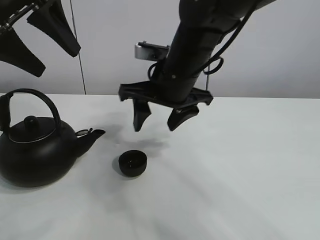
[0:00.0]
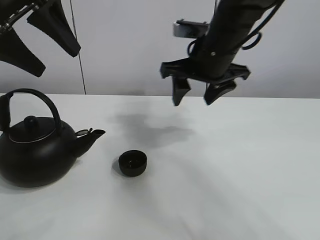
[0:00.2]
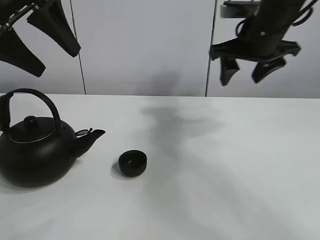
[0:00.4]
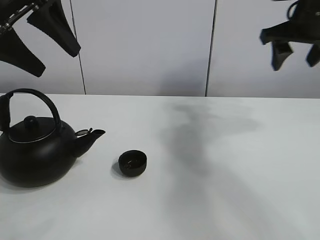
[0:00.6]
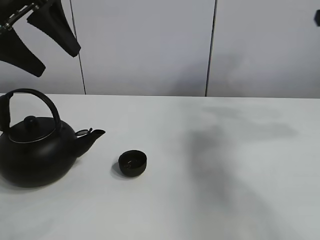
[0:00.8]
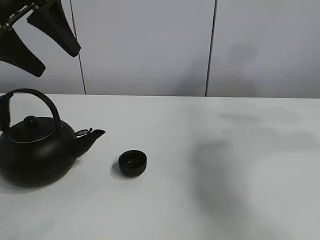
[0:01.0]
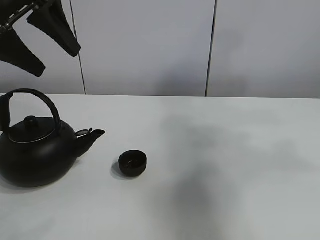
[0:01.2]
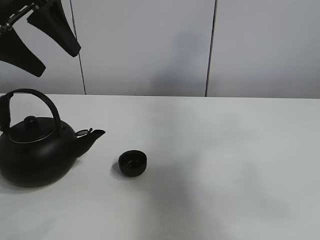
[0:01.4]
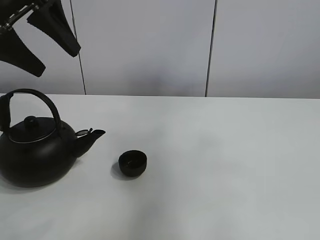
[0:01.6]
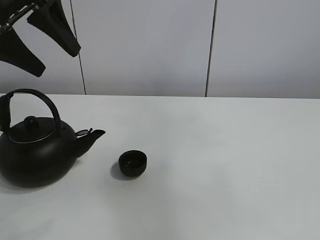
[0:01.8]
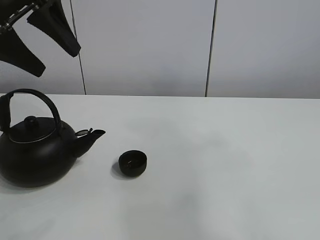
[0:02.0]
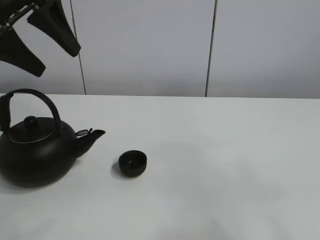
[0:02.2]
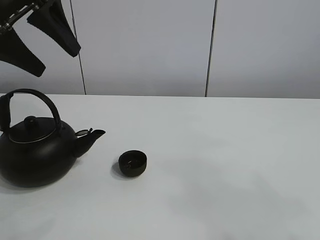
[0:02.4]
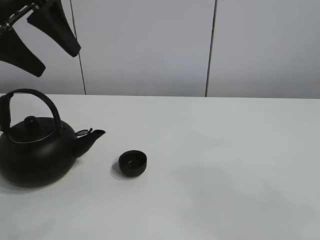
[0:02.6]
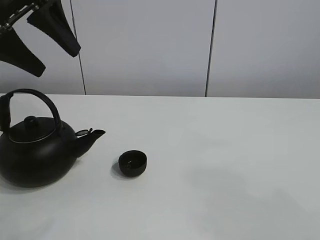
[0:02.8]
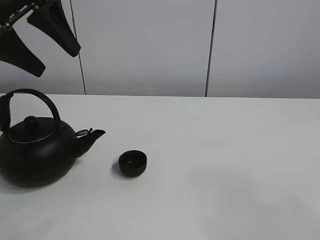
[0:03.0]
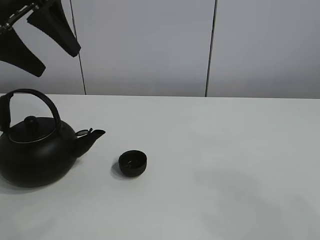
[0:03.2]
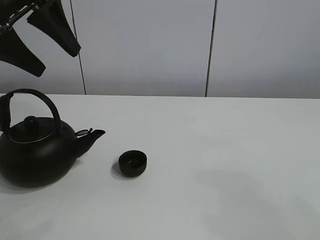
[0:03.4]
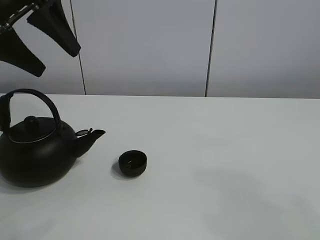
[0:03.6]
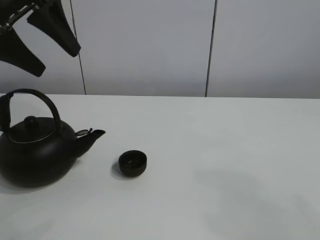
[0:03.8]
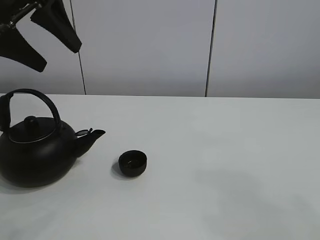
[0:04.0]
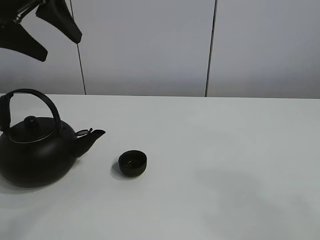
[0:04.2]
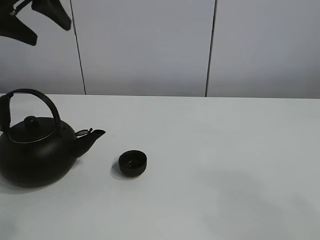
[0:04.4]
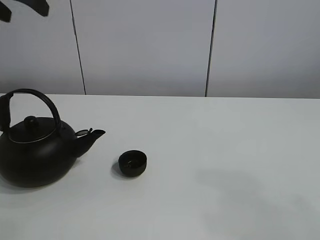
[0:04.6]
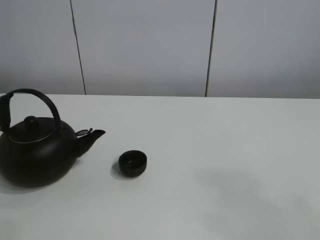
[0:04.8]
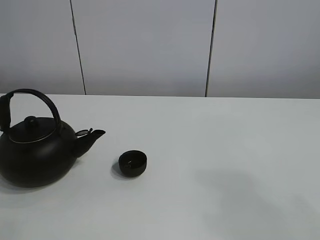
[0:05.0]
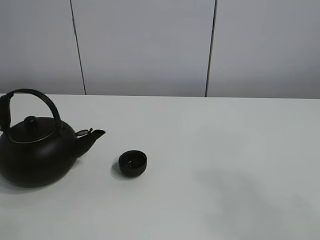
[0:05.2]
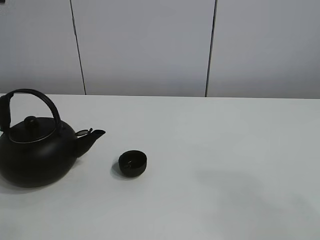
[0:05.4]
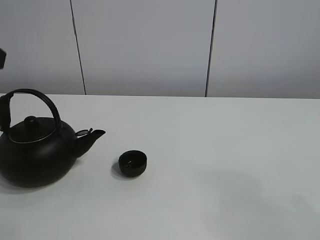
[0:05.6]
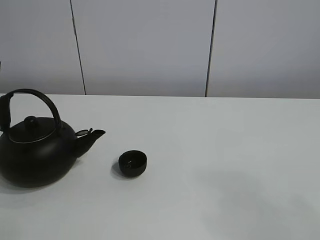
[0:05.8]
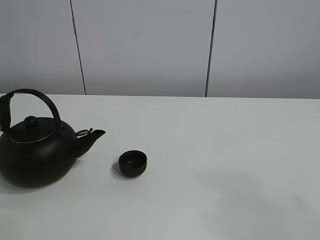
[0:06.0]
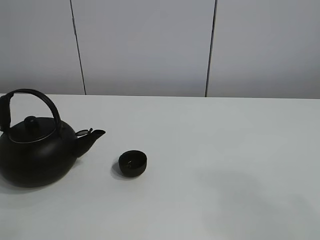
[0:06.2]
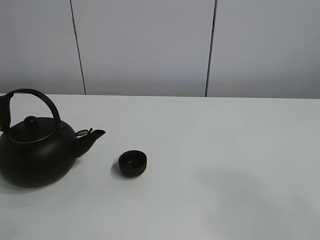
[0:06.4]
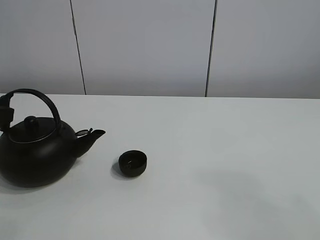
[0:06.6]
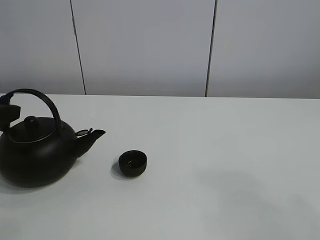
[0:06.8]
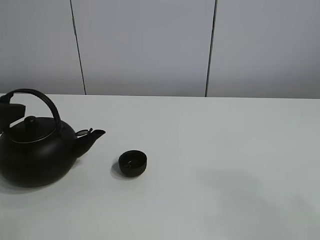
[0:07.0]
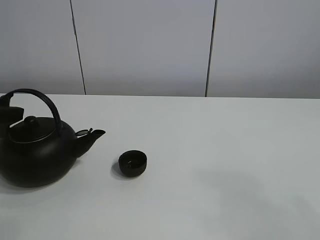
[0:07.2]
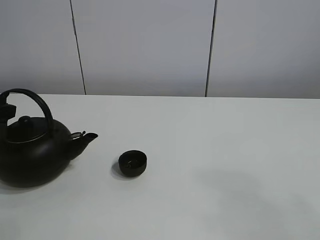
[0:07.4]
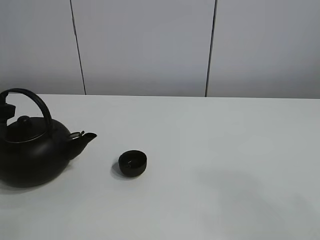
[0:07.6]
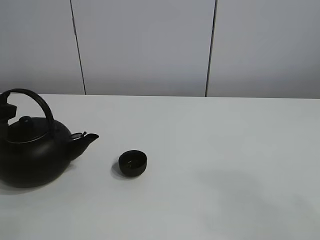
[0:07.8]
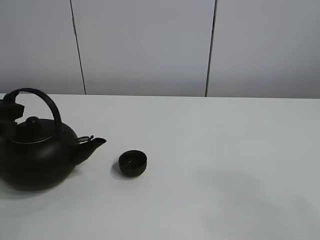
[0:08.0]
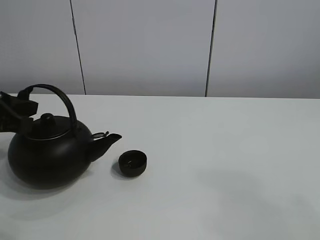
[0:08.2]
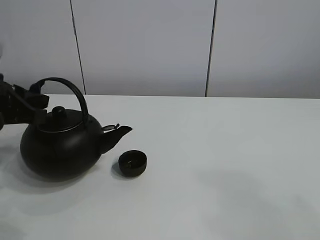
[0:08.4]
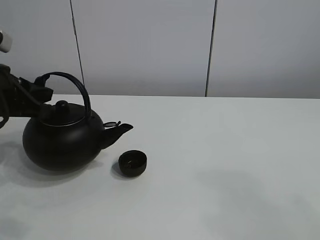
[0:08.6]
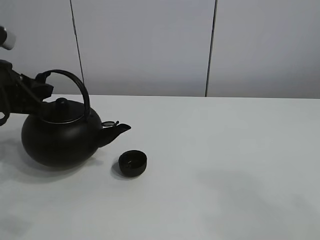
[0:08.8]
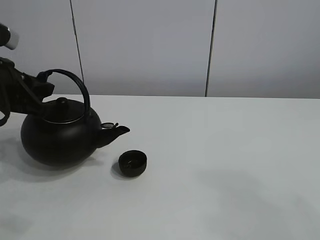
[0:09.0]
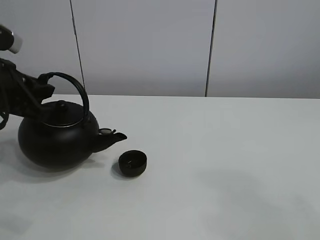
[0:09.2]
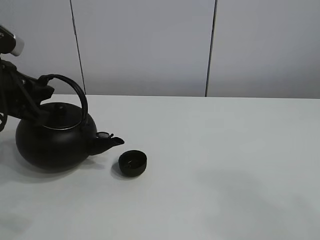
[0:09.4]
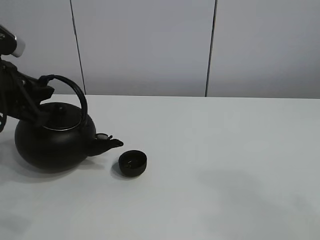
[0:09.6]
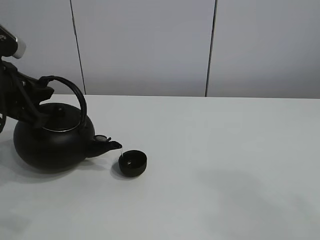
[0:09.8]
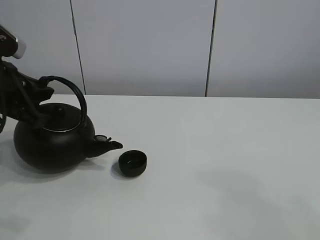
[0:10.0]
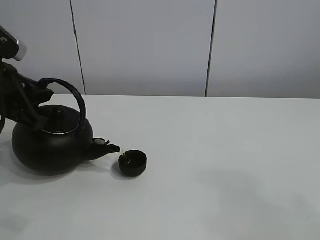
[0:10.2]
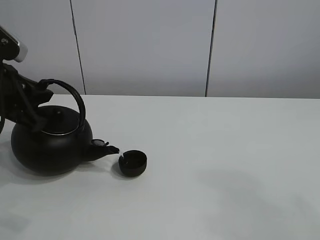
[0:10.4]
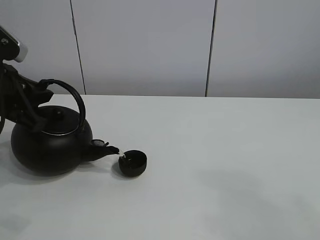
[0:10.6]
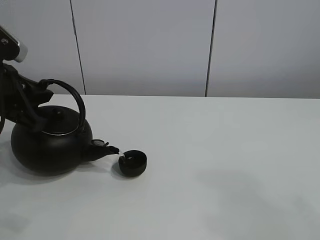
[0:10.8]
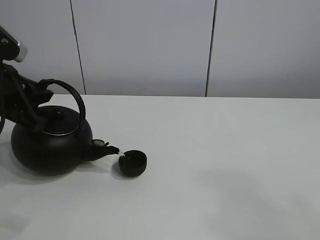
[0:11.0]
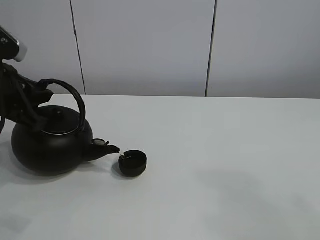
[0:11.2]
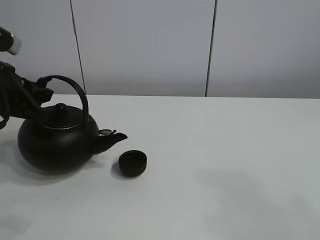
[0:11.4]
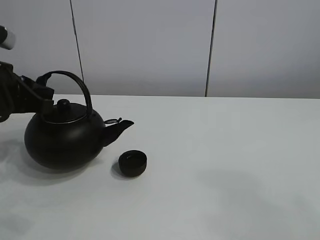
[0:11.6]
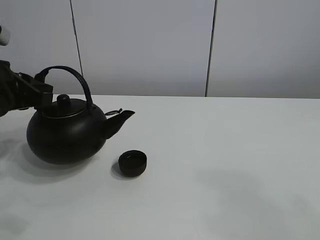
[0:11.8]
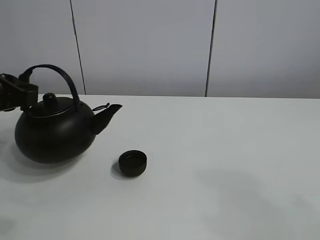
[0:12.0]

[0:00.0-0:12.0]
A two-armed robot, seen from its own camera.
Task of the whole recording: pour tea into the teacup.
Step, 0:00.0 to 0:08.0: Pick up the teapot with the left gripper.
Step, 0:08.2 to 0:11.2: Pour tea into the teacup with the left gripper.
0:00.0 to 0:01.6: The right gripper moves backward, upward and to the right, some 50 cm.
0:01.6 to 0:03.0: The right gripper goes about 25 cm downward.
0:04.4 to 0:06.0: The left gripper heads backward and downward, covering about 20 cm.
0:06.0 to 0:07.6: The left gripper heads downward and forward, covering about 15 cm, and closes its fingers.
0:07.6 to 0:09.0: The left gripper heads to the right, covering some 5 cm.
0:09.0 to 0:10.4: There are only small adjustments of the grippers.

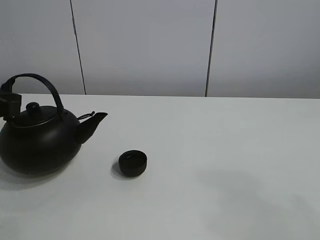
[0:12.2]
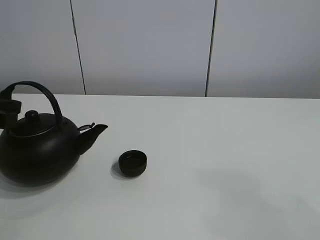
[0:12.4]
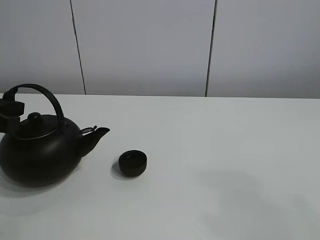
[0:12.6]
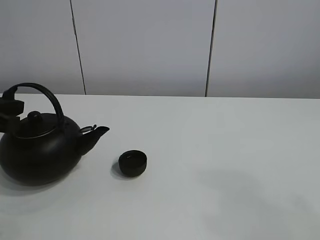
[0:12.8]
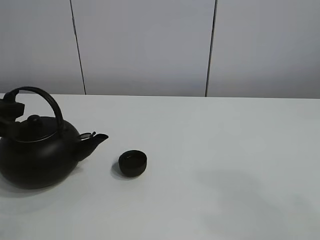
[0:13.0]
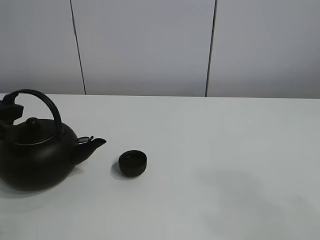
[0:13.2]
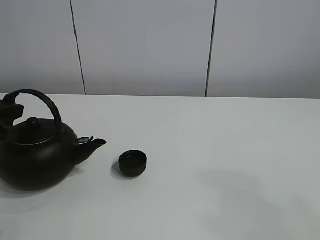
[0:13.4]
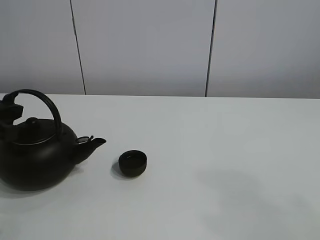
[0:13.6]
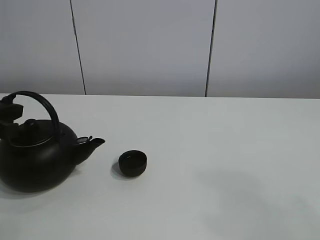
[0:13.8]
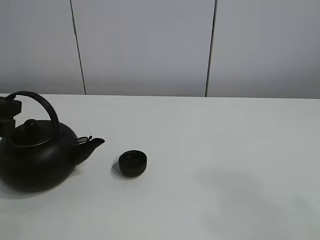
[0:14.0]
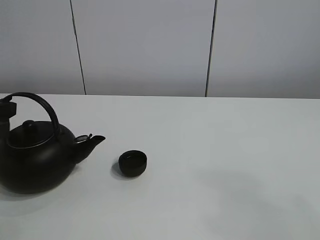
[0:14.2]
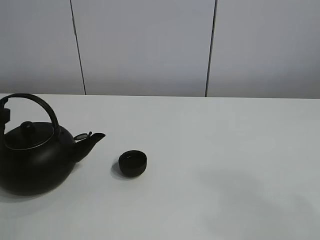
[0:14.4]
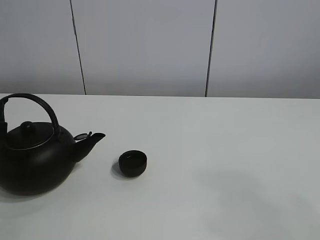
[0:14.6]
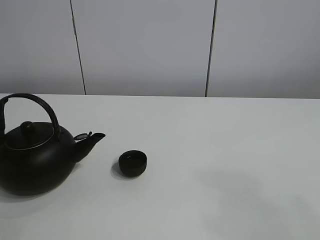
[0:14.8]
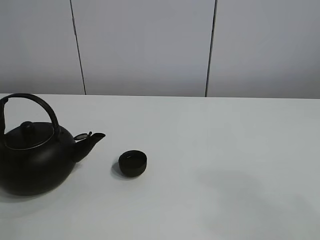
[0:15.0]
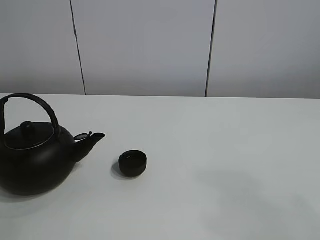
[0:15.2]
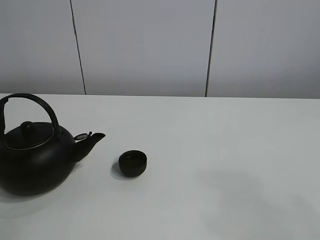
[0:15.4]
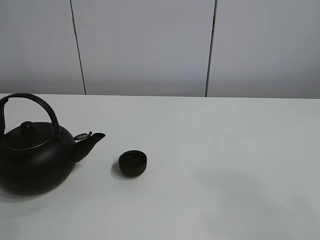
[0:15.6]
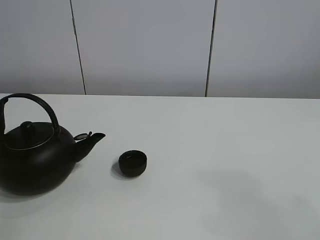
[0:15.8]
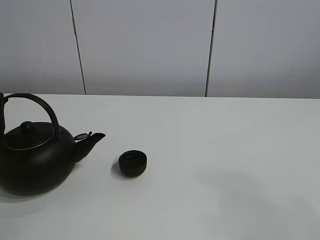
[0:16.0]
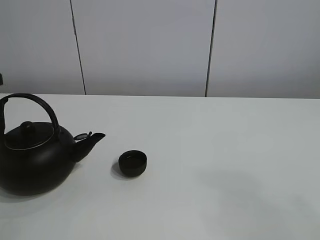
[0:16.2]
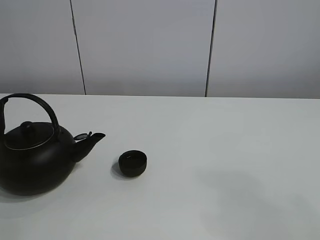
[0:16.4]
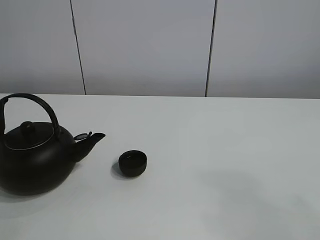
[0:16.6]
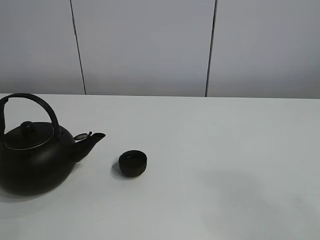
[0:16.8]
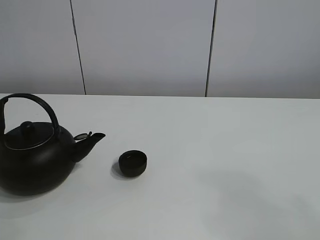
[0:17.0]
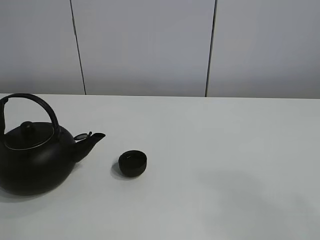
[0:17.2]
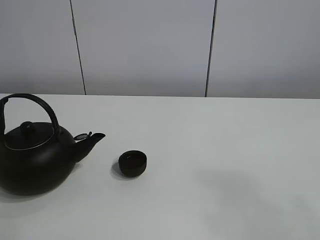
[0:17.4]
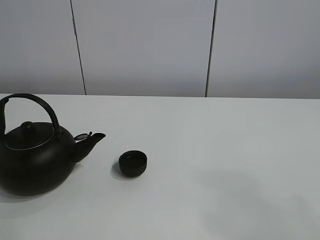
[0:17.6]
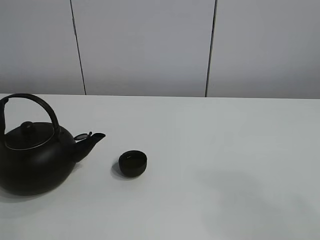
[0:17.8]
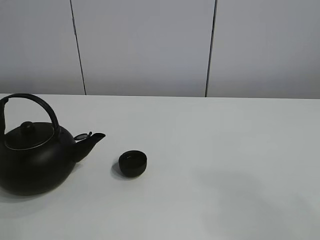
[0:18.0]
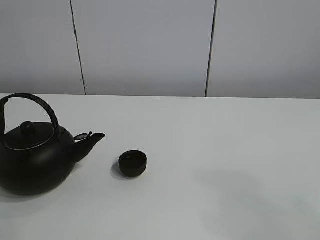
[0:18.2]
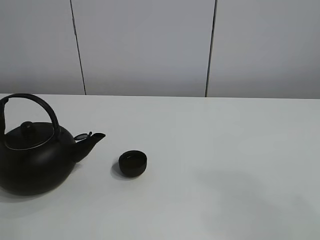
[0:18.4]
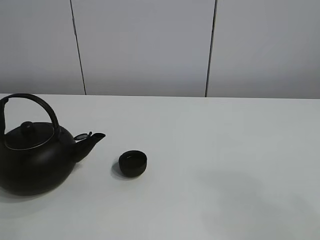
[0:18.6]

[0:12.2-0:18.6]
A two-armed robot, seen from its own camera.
Task of the whole recording: pour tea into the teacup.
0:12.2 to 0:13.8: There are only small adjustments of the grippers.
0:13.8 to 0:15.4: The left gripper moves about 5 cm, and opens up.
